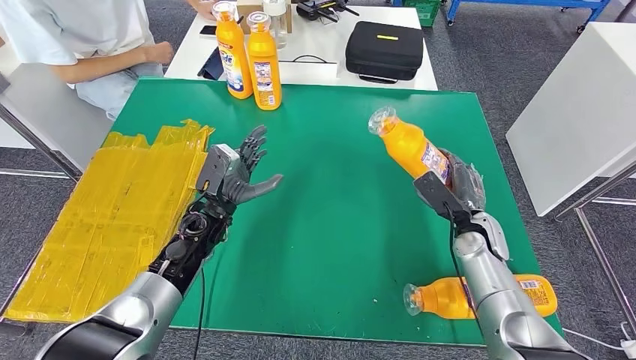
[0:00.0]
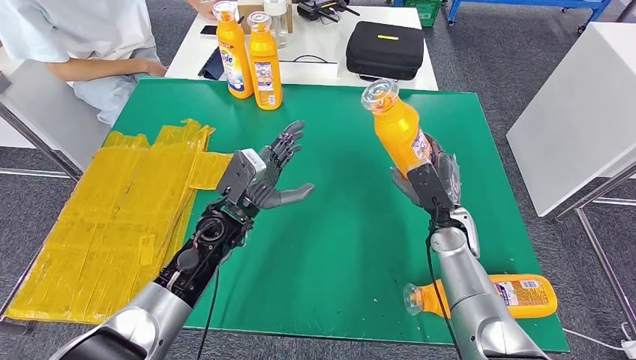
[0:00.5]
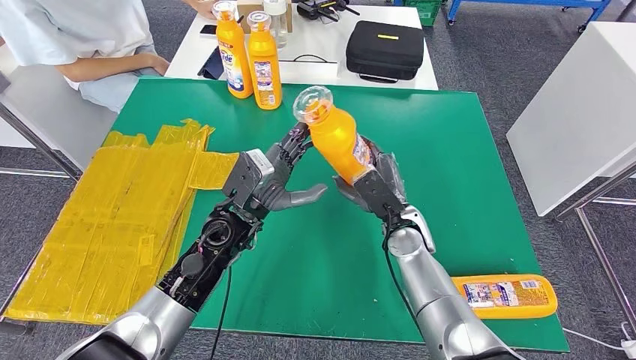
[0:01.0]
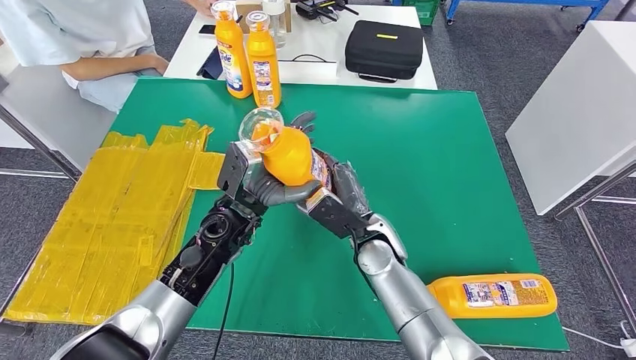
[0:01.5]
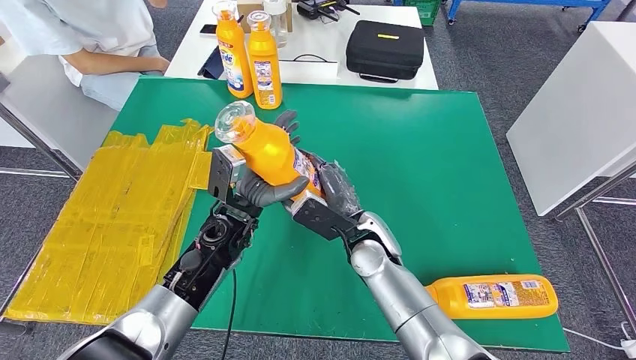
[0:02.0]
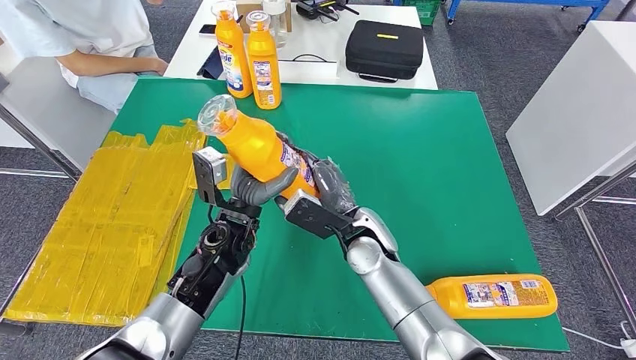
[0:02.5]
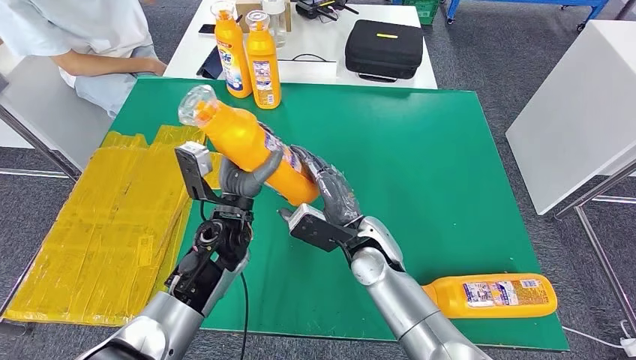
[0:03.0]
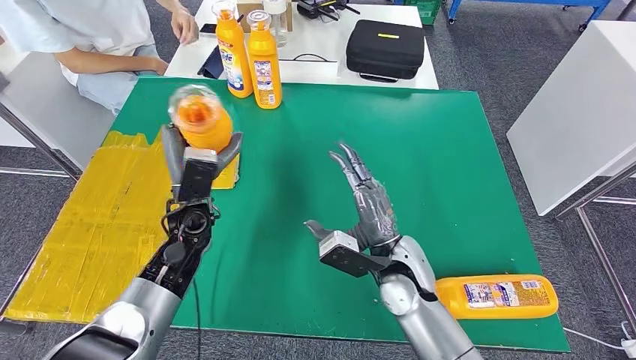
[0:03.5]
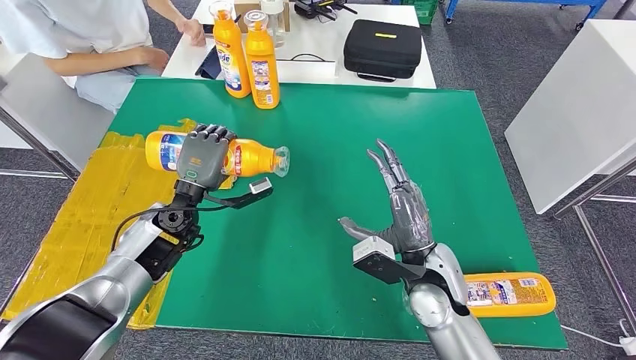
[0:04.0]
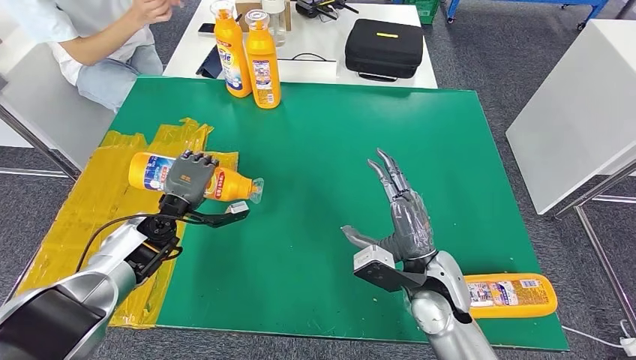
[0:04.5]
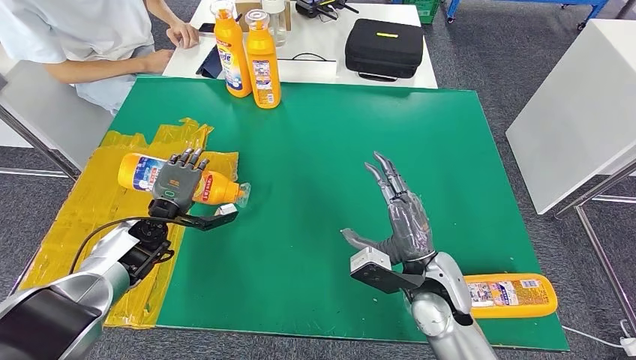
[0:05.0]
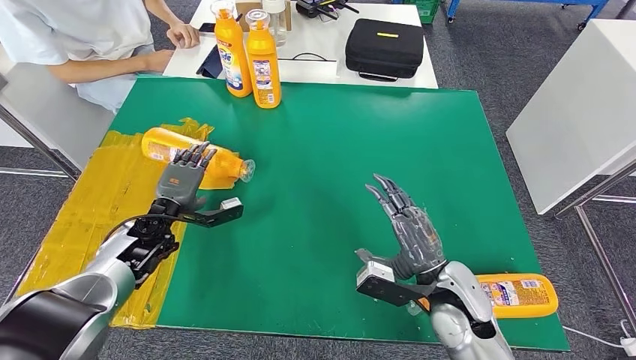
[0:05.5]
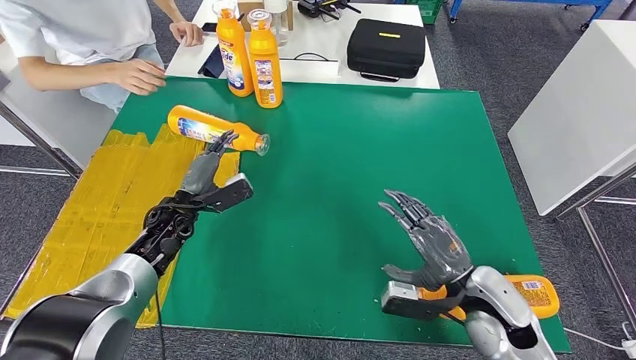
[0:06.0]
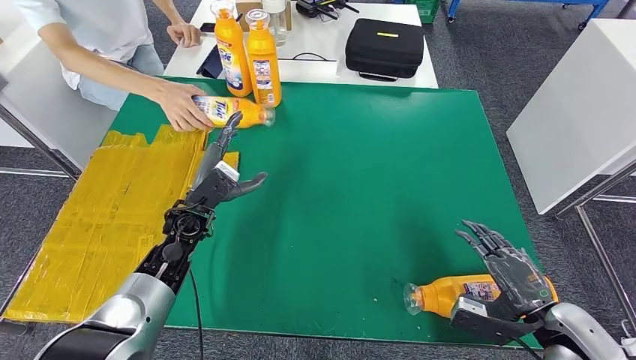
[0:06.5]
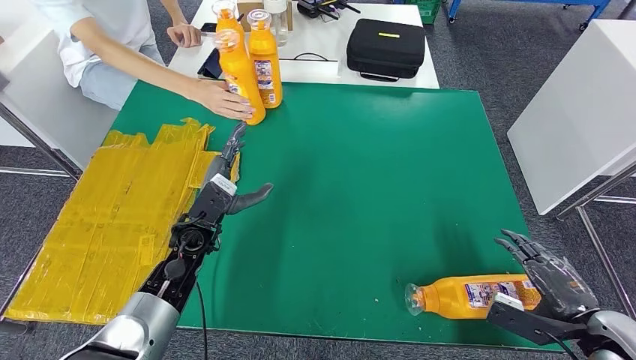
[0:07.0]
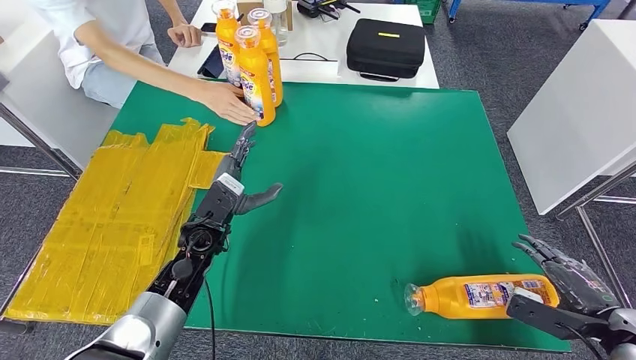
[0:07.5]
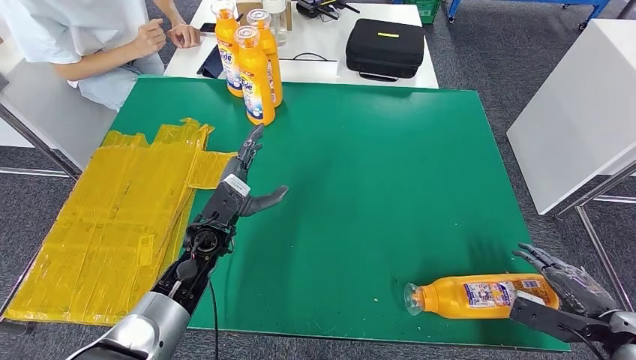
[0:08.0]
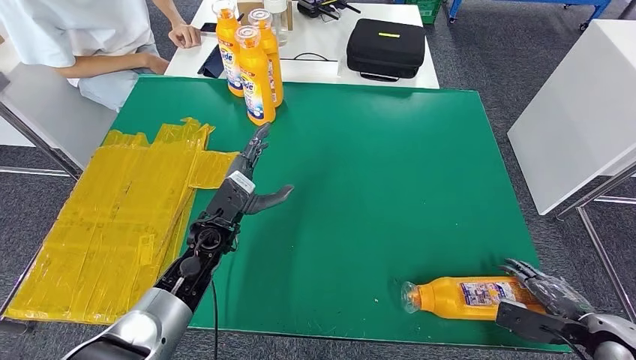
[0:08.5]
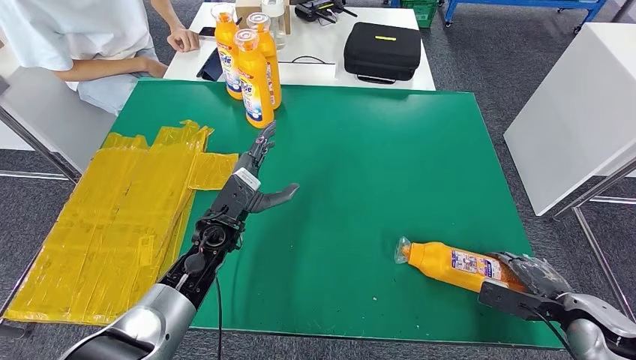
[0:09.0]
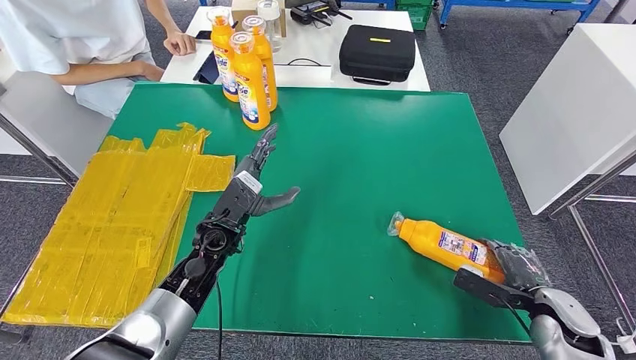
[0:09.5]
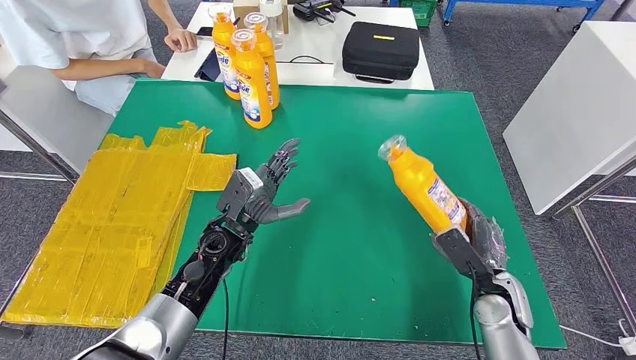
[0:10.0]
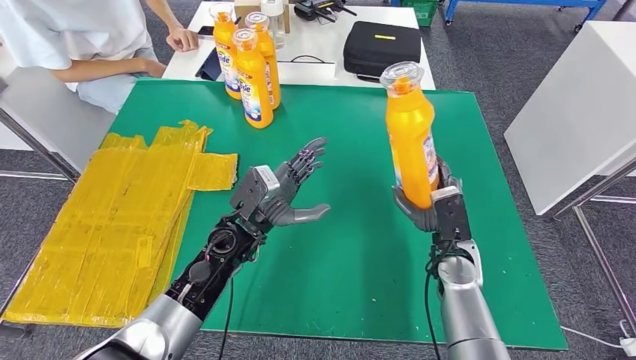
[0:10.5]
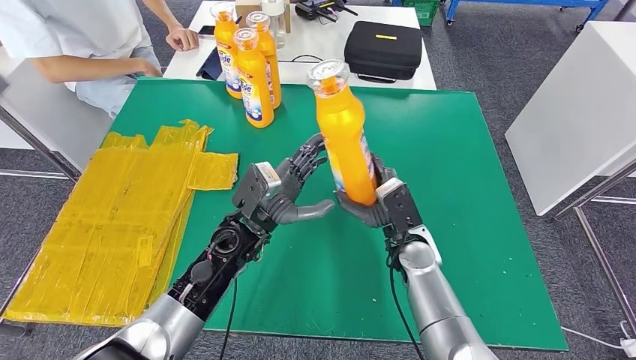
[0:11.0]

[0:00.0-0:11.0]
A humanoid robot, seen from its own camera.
Step, 0:01.0 to 0:03.5: Flip the fast-moving consumer goods bottle to the front side.
Step, 0:04.0 to 0:10.5: Pick up the fast-moving consumer goods bottle from the table.
0:02.0 to 0:03.5: The left hand travels to the left by roughly 5 cm, while the right hand goes some 5 cm to the right.

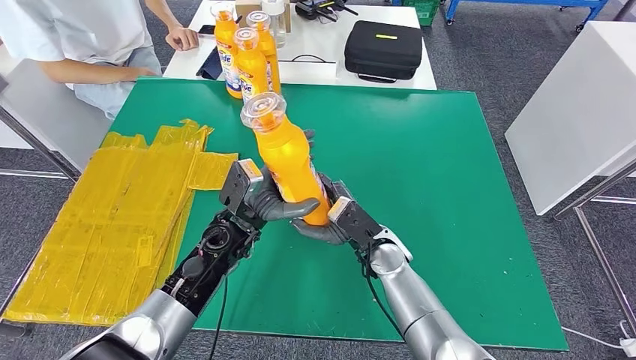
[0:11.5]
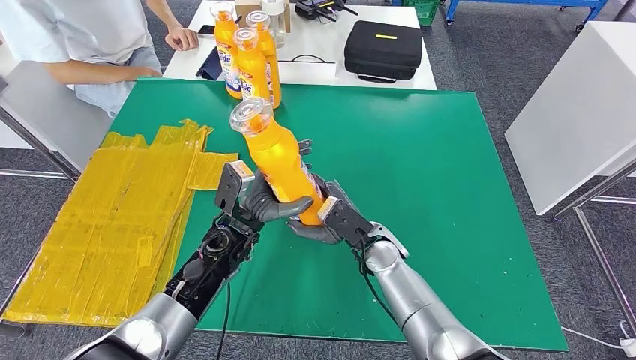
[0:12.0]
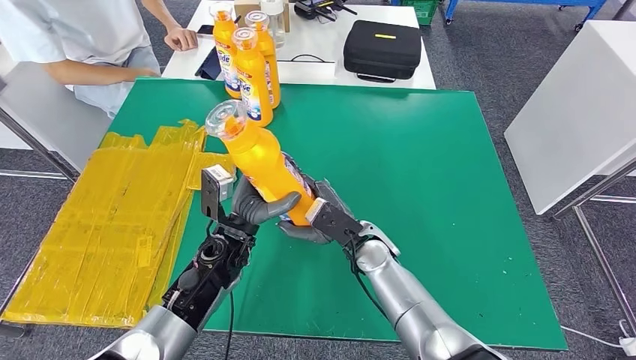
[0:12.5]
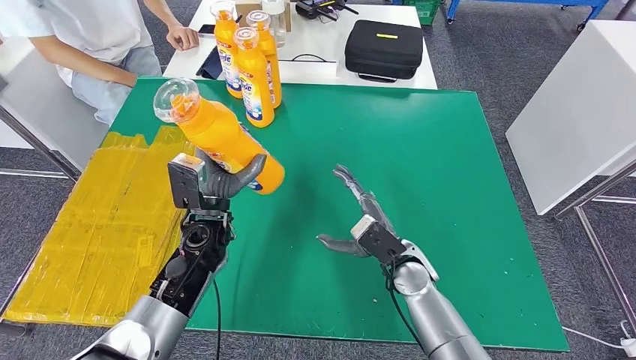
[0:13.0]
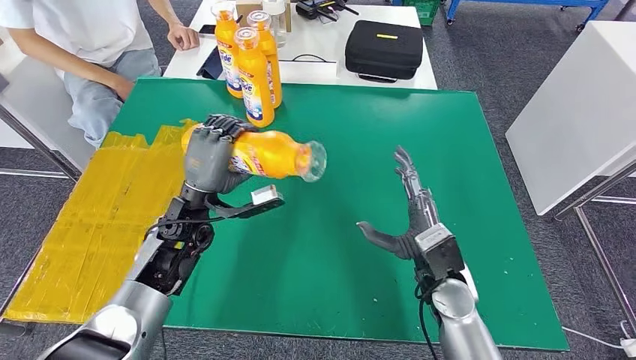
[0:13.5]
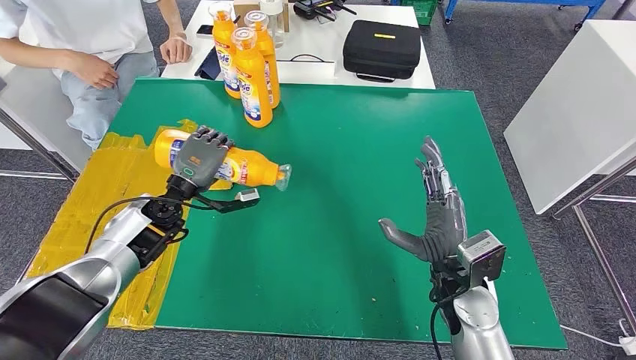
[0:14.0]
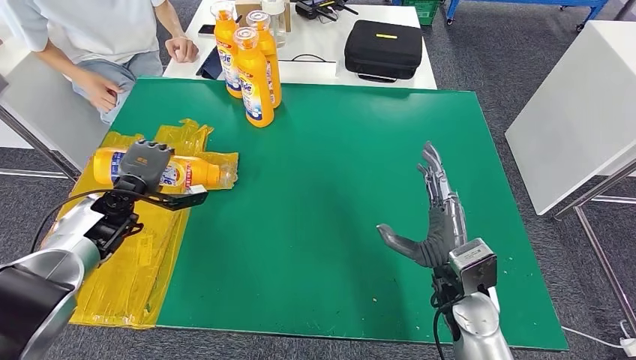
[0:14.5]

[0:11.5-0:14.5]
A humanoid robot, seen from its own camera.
Step, 0:11.5 to 0:14.5: Flip the fast-moving consumer goods bottle to the front side.
0:11.5 to 0:13.0: The right hand shifts about 5 cm to the right.
